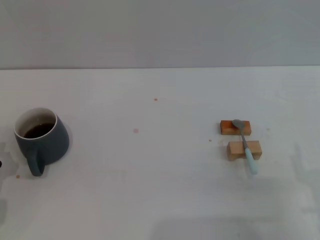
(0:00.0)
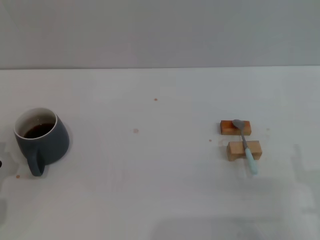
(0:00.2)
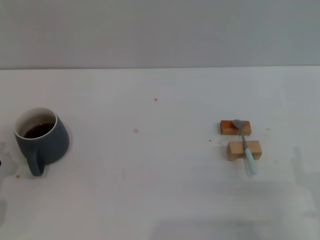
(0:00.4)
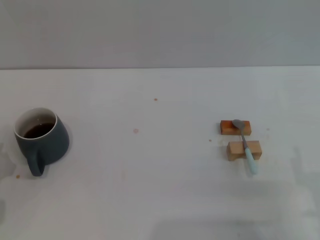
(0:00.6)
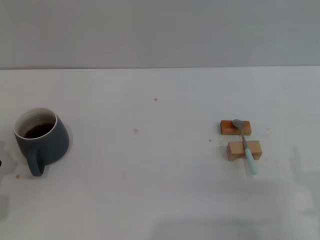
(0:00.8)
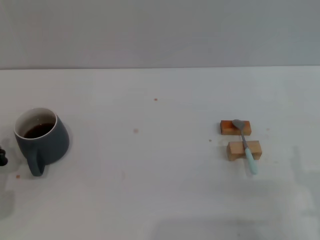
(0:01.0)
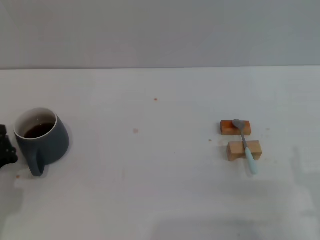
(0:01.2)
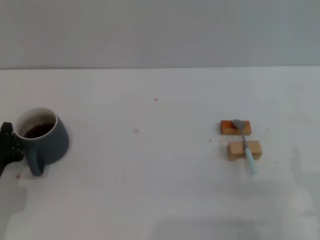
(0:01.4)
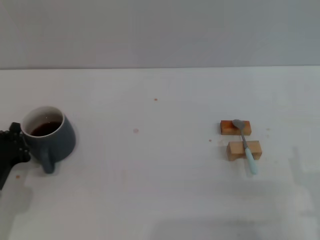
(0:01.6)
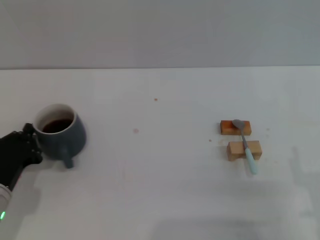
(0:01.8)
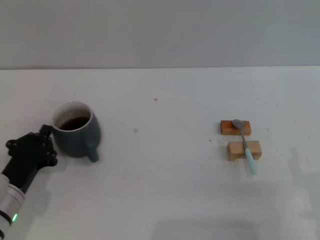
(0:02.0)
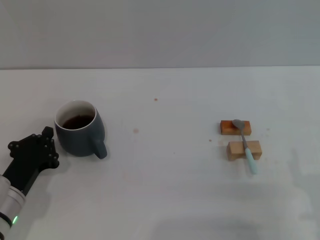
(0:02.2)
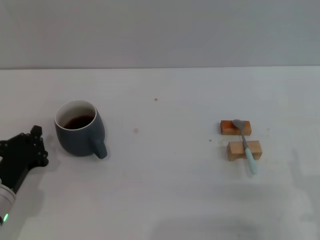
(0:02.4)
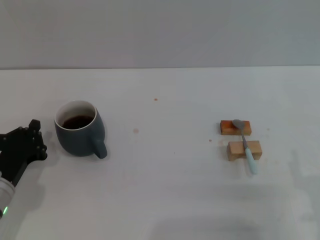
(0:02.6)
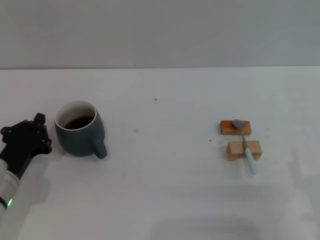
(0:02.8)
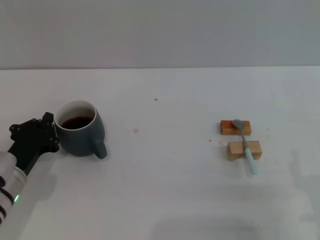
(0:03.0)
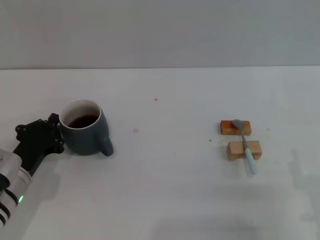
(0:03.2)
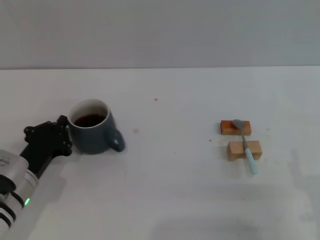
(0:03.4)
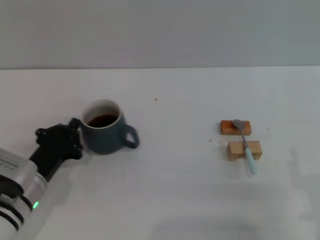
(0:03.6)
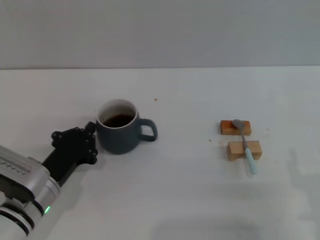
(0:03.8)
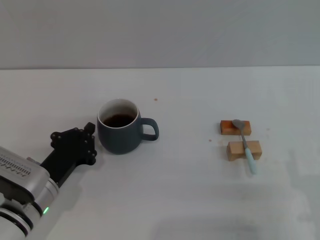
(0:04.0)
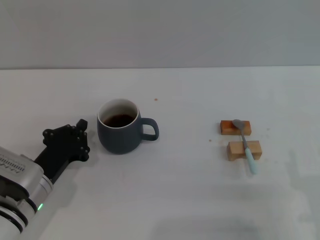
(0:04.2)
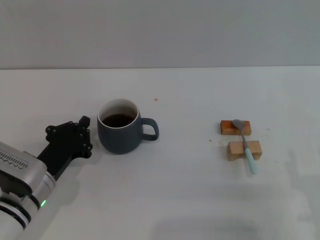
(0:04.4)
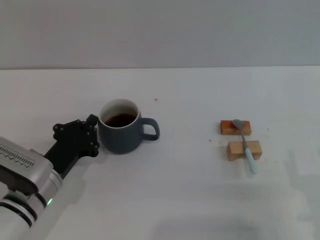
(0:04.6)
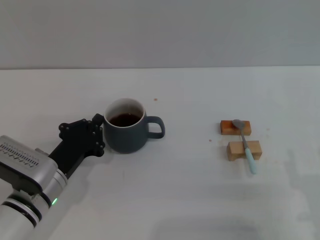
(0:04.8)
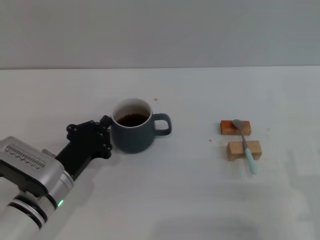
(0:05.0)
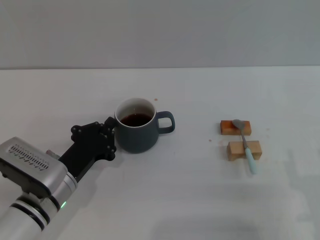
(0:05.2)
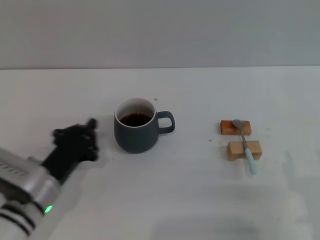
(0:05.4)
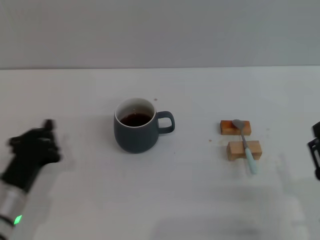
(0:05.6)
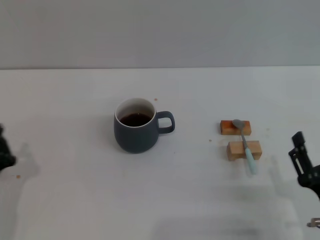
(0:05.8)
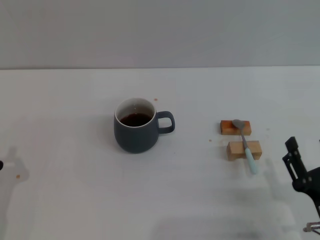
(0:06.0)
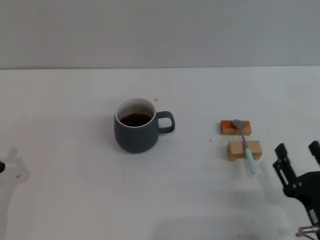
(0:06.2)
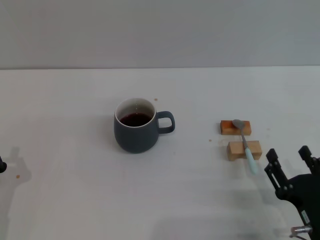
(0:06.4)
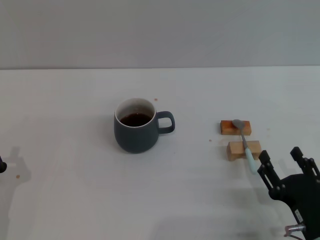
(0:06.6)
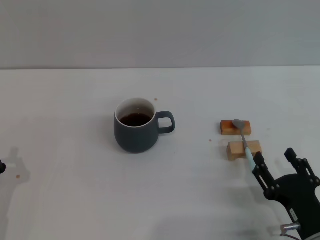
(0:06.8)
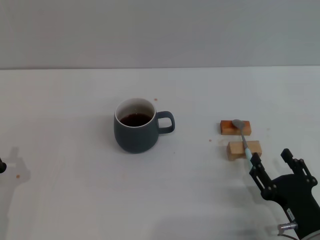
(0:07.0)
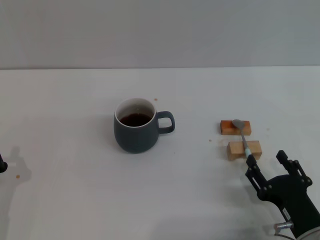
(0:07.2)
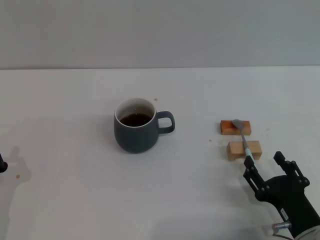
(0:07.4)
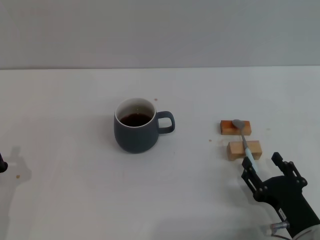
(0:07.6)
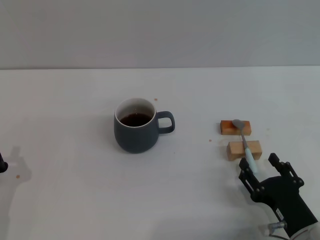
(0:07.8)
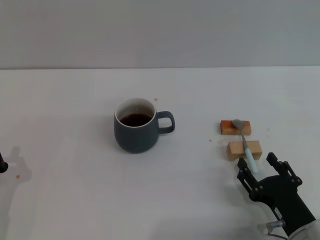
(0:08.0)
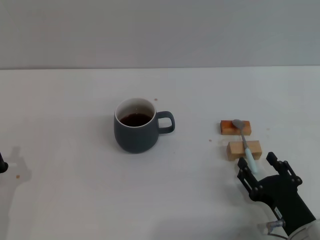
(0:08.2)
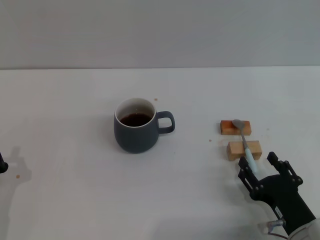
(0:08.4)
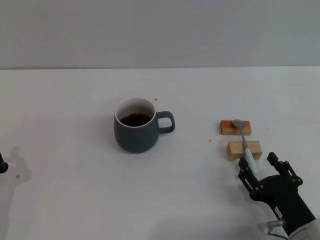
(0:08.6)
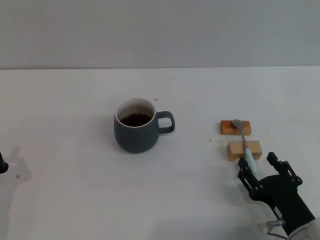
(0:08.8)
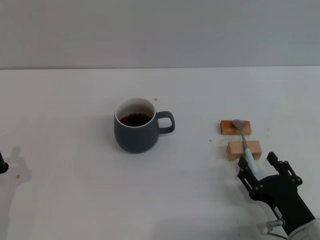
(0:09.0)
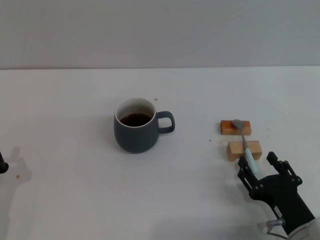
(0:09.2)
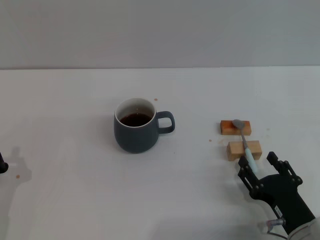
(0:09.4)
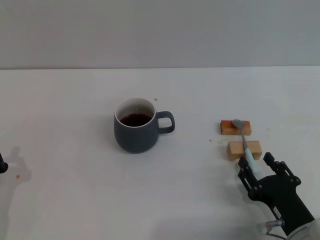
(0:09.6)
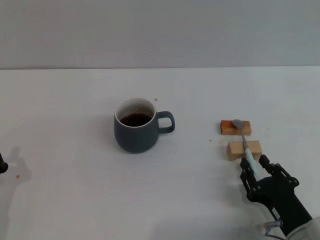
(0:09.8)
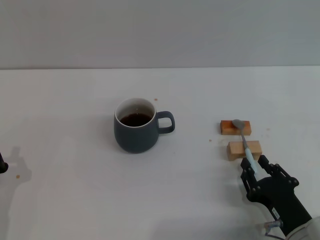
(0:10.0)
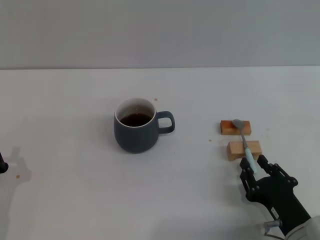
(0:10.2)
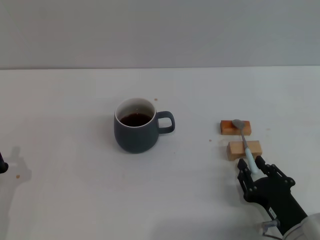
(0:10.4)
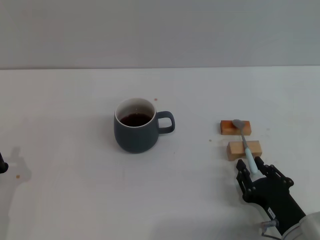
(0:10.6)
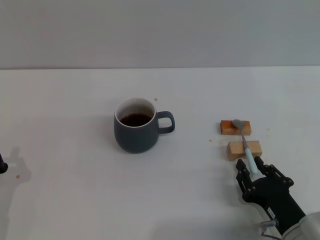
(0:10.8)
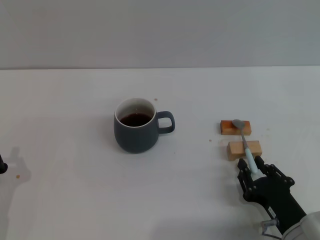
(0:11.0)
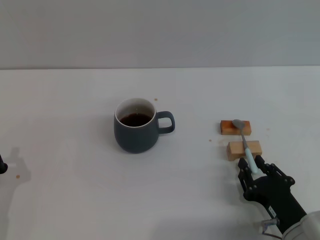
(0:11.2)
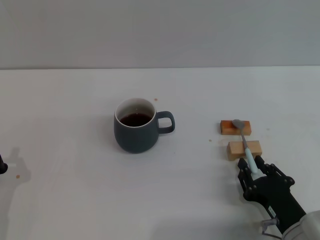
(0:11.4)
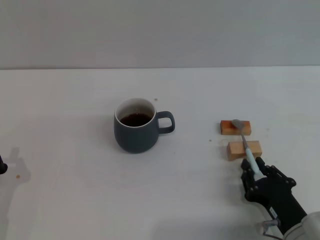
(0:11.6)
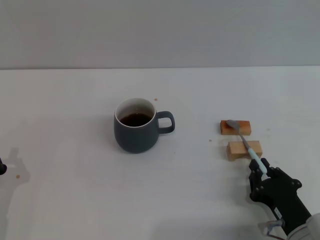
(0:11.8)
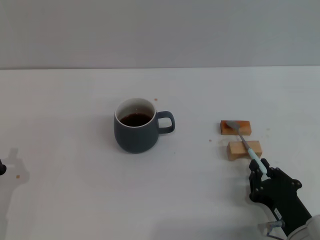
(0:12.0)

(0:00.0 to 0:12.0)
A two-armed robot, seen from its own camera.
Task of the whole recording: Move the grey cup to the center, lift the blue spoon, stir it three times in the cup, and put the spoon into the cup.
Step, 0:00.0 - 0:05.2: Move the cup with coffee to the center of view with the left gripper.
0:00.0 - 0:01.6: There are only small adjustments of the grippers.
0:01.6 - 0:03.0: The grippers stay close to where they were, moving slightly.
0:03.0 - 0:04.4: The grippers move only a little.
0:04.4 - 0:06.0: The left gripper moves backward and to the left, approximately 10 cm.
0:06.0 - 0:07.6: The grippers make only small movements.
0:07.6 - 0:09.0: Neither gripper changes place.
0:09.0 - 0:10.4: The right gripper closes up.
0:10.4 - 0:12.0: The right gripper closes.

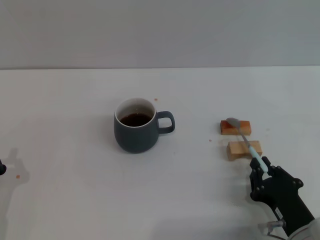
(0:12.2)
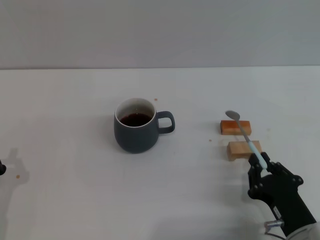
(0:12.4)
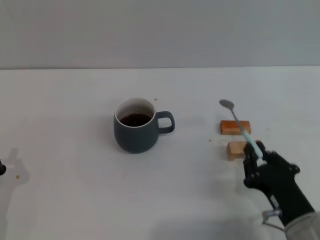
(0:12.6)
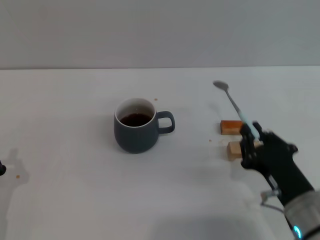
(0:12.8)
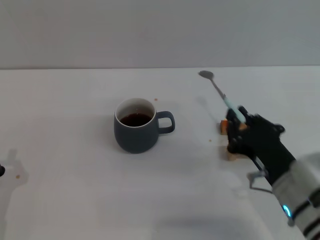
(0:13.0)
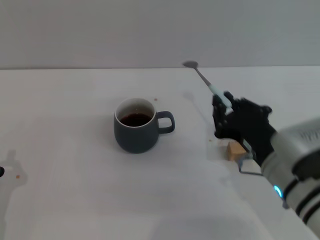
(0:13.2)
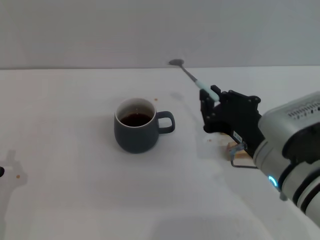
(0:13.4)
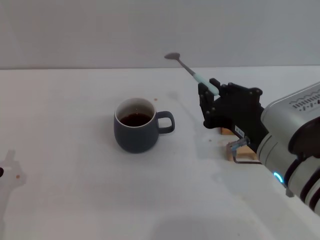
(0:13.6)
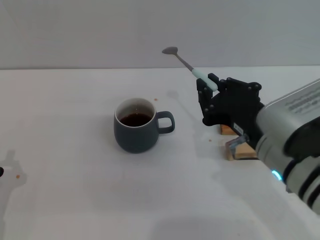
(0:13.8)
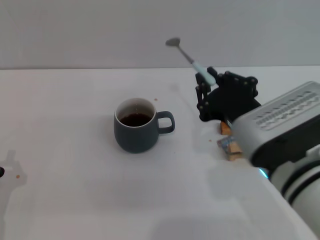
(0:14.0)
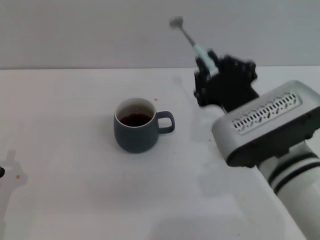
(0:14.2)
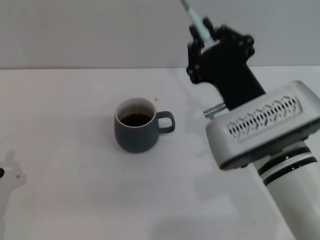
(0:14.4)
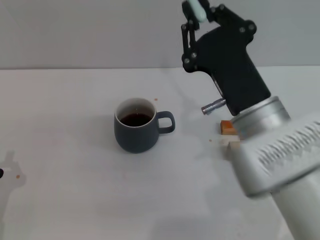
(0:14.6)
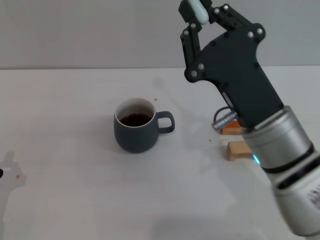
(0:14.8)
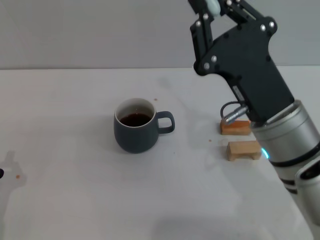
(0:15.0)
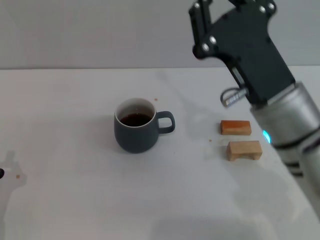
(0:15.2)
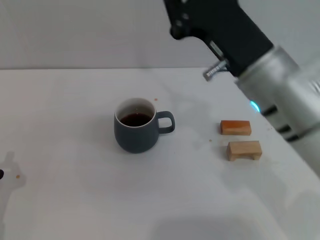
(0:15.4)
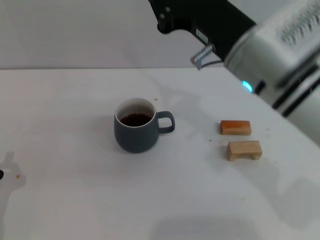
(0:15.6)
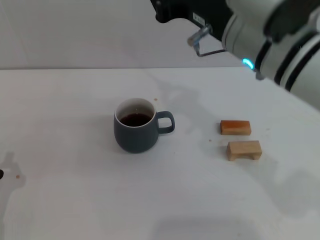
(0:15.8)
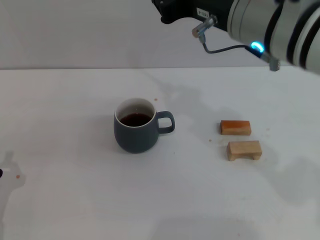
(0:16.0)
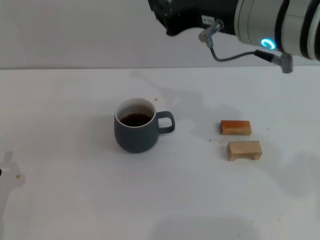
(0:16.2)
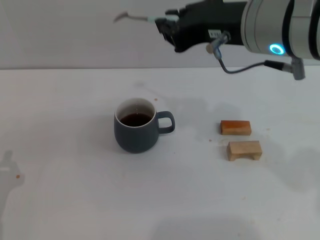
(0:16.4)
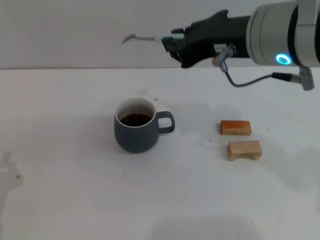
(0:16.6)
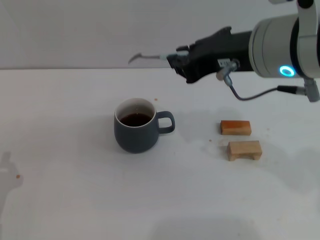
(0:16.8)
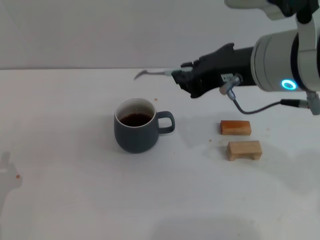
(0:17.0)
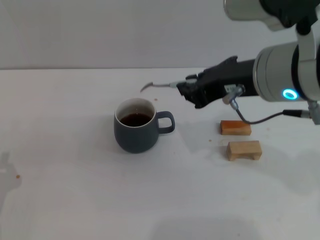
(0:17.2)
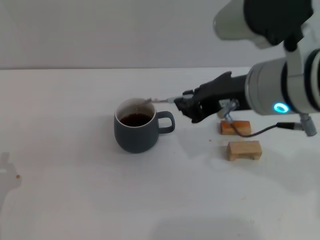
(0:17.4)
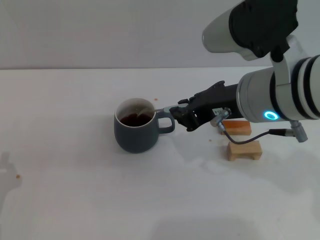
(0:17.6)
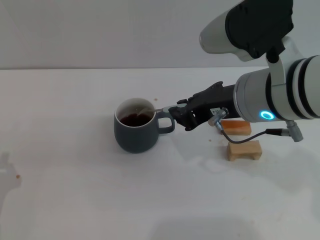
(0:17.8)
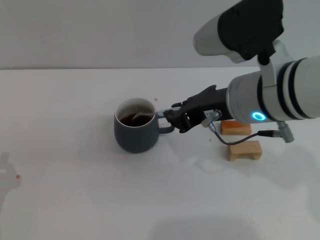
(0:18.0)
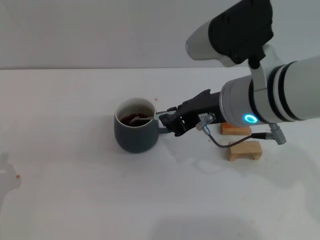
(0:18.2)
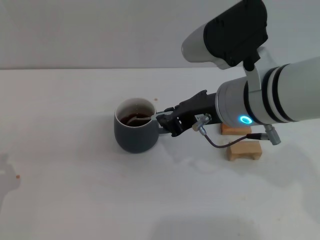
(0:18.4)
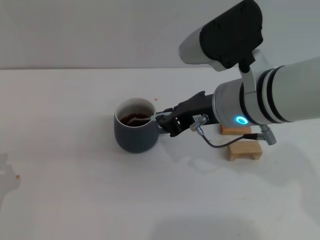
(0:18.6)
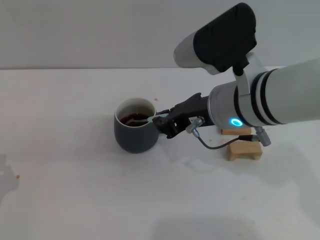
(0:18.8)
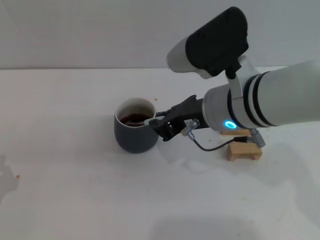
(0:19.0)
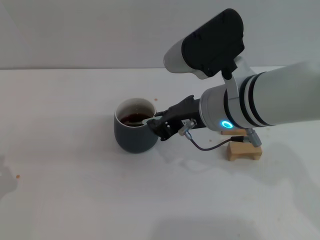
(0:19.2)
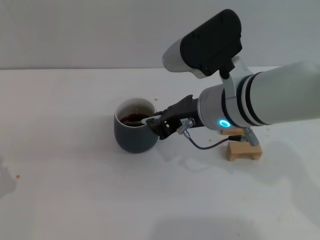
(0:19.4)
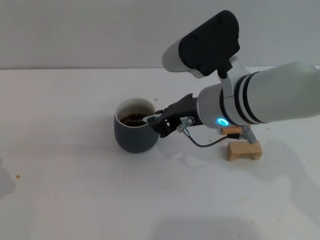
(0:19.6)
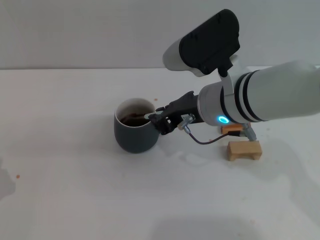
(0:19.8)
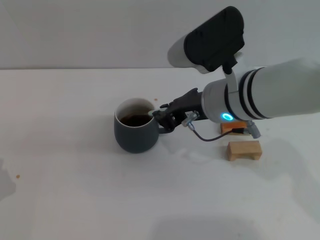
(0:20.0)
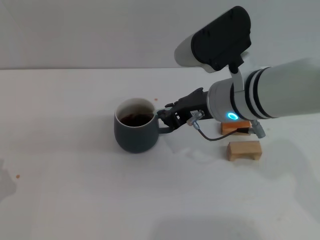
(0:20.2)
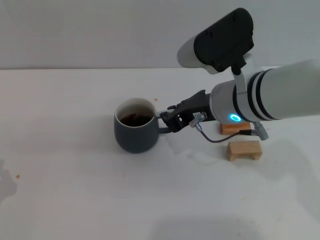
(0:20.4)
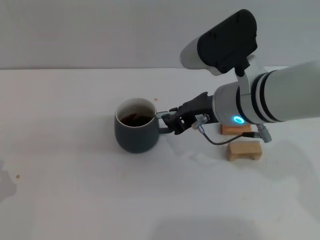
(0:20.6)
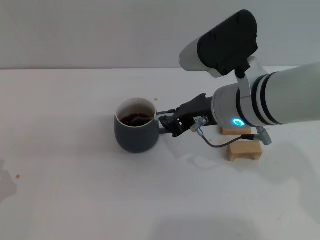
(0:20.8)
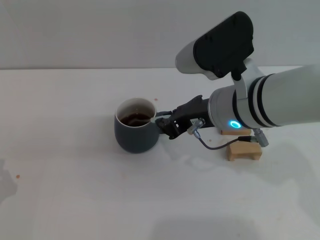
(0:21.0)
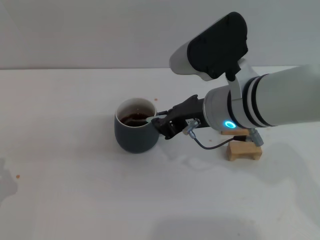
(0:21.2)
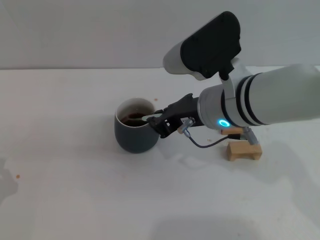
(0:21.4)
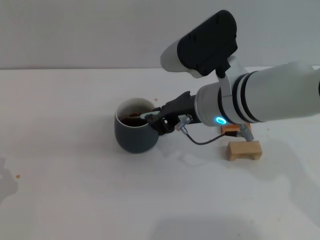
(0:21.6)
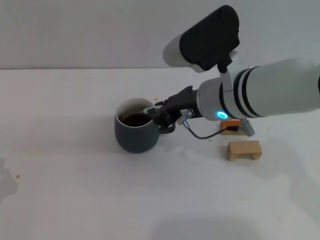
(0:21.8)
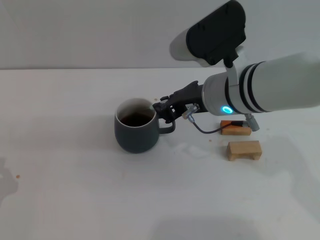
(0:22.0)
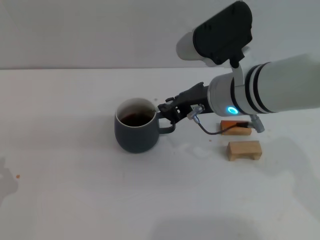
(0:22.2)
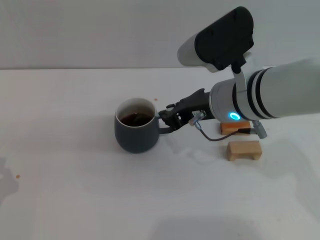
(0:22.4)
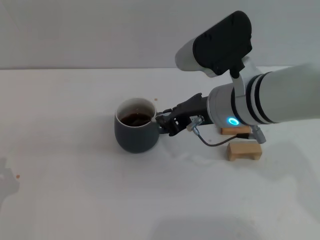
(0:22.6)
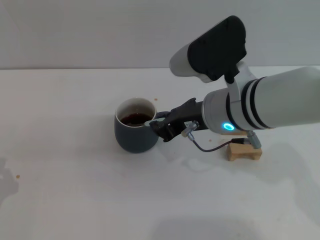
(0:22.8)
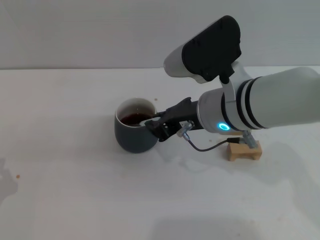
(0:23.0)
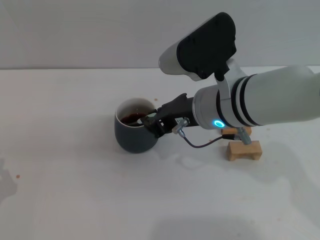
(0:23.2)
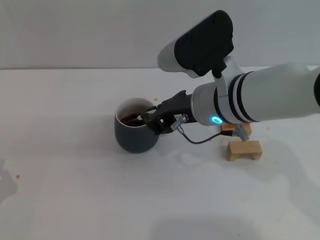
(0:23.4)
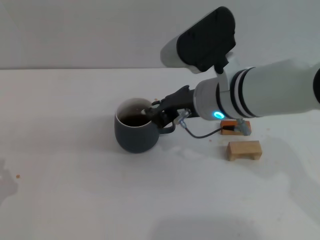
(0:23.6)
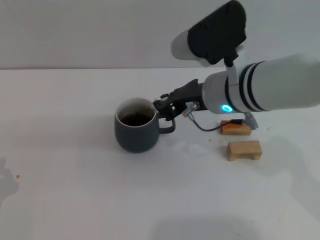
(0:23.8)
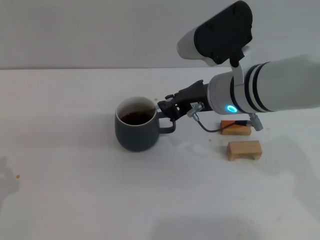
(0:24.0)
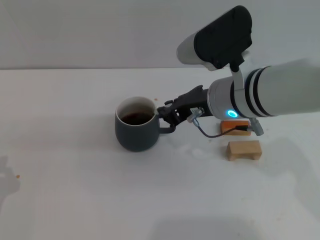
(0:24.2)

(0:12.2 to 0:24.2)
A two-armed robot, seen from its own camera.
Task of the whole recording: Move the grey cup to the center, lift the blue spoon, stir it three times in the cup, and put the spoon into the cup.
0:12.2 - 0:13.8: The right gripper heads upward and to the left, covering about 20 cm.
0:15.2 - 0:16.6: The right gripper heads upward, covering approximately 10 cm.
0:16.6 - 0:18.2: The right gripper is displaced downward by about 5 cm.
0:18.2 - 0:24.2: The grippers stay close to where they were, moving slightly.
